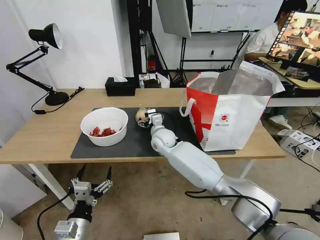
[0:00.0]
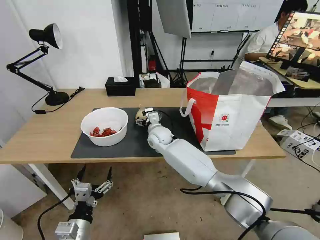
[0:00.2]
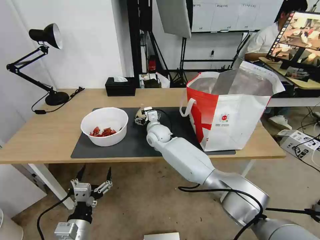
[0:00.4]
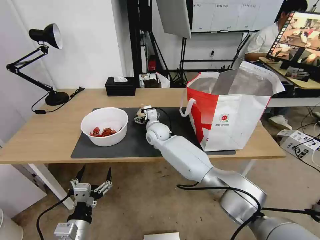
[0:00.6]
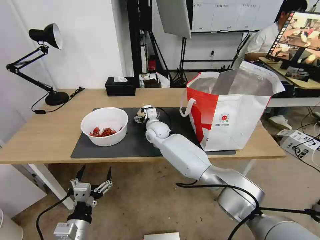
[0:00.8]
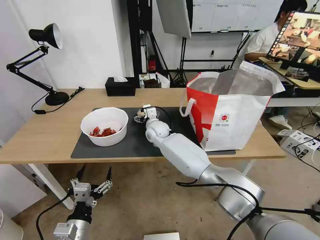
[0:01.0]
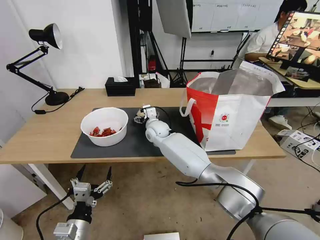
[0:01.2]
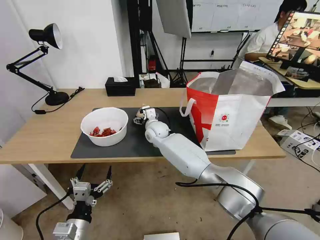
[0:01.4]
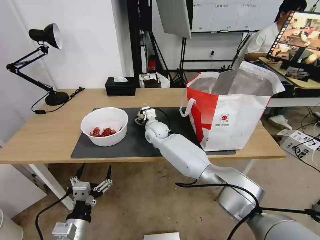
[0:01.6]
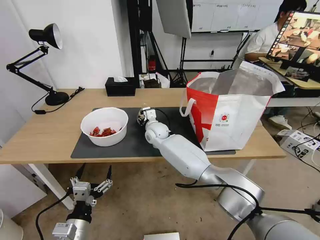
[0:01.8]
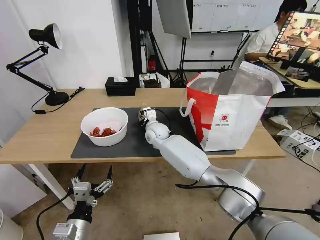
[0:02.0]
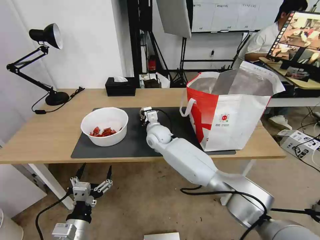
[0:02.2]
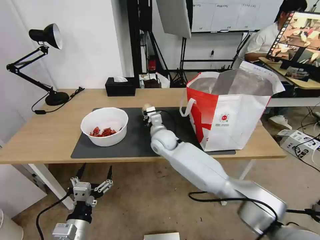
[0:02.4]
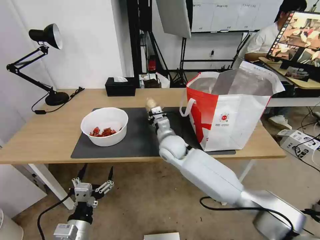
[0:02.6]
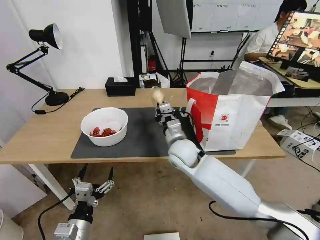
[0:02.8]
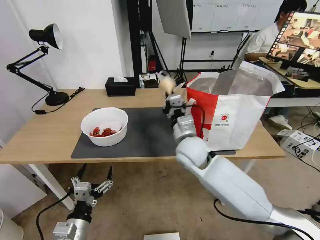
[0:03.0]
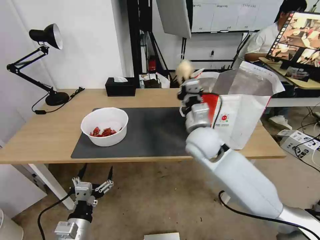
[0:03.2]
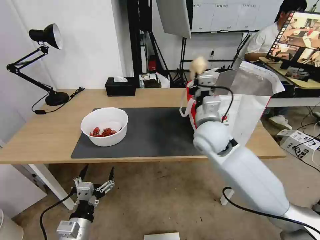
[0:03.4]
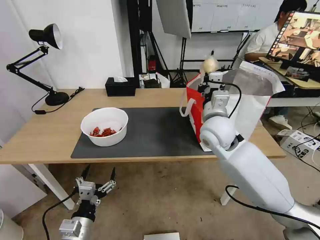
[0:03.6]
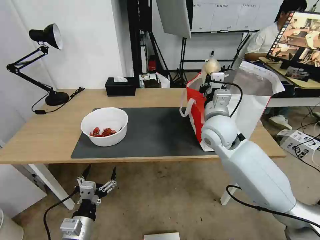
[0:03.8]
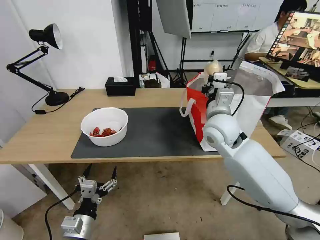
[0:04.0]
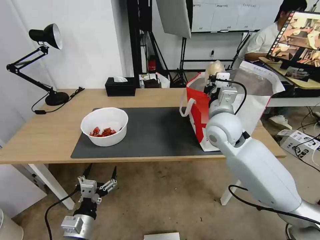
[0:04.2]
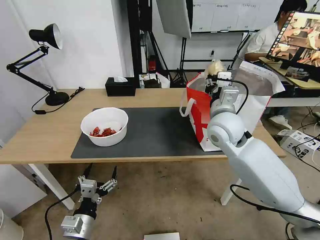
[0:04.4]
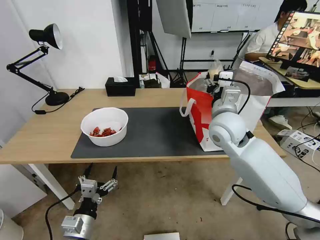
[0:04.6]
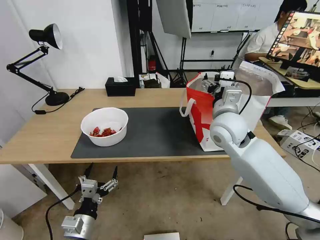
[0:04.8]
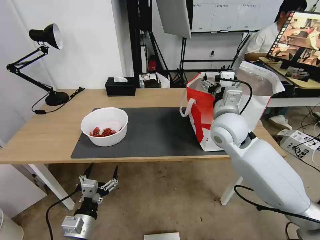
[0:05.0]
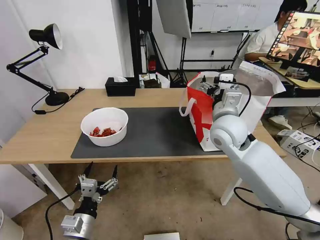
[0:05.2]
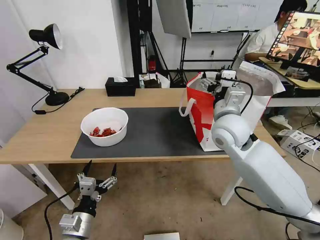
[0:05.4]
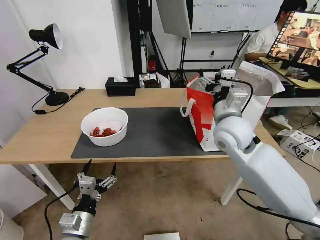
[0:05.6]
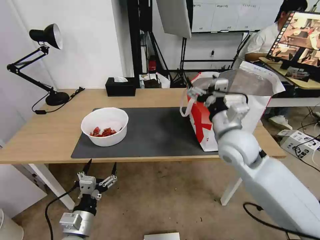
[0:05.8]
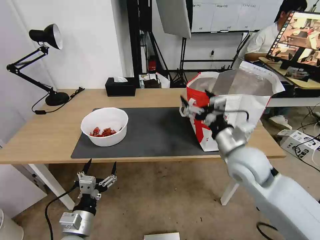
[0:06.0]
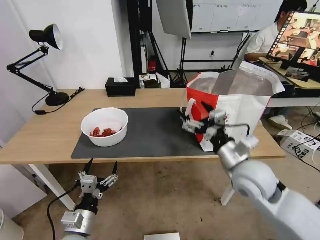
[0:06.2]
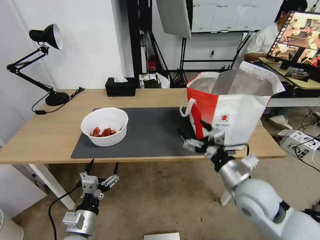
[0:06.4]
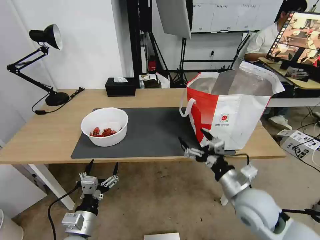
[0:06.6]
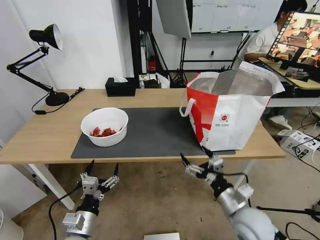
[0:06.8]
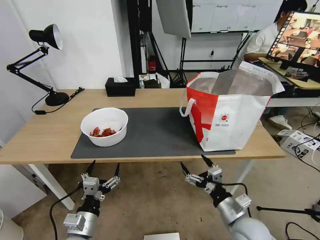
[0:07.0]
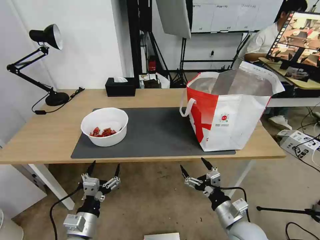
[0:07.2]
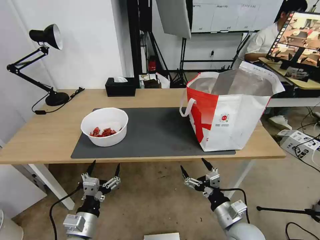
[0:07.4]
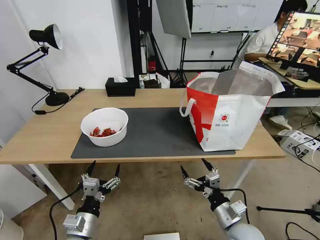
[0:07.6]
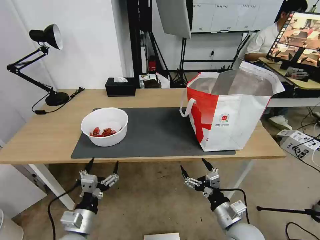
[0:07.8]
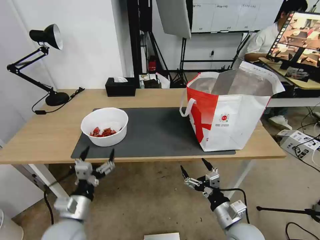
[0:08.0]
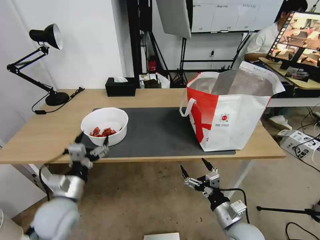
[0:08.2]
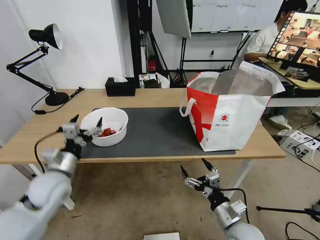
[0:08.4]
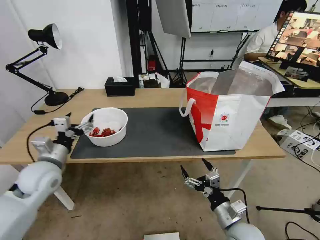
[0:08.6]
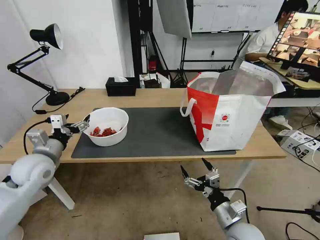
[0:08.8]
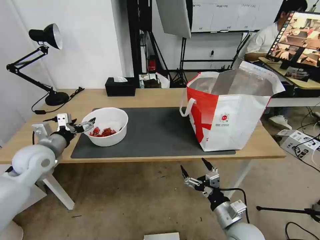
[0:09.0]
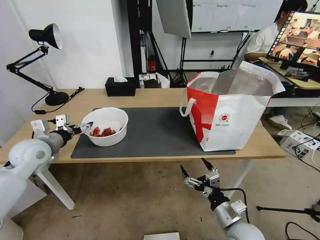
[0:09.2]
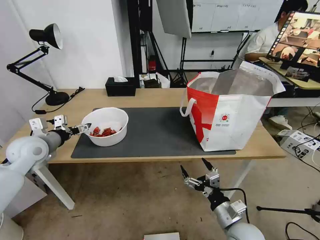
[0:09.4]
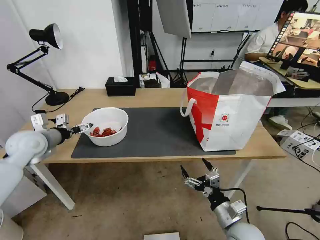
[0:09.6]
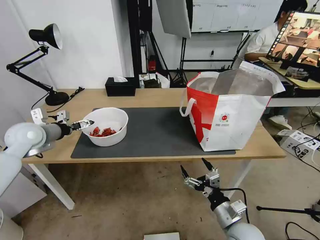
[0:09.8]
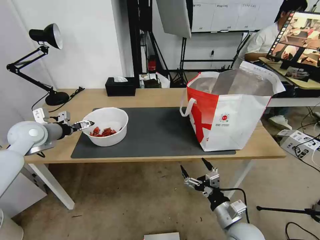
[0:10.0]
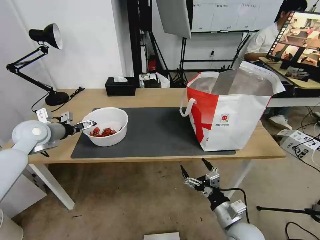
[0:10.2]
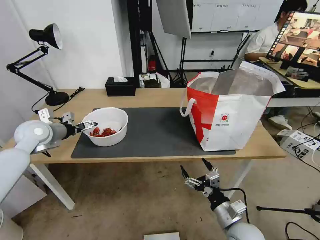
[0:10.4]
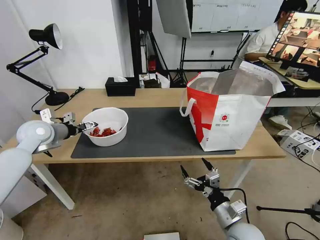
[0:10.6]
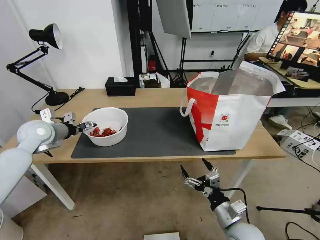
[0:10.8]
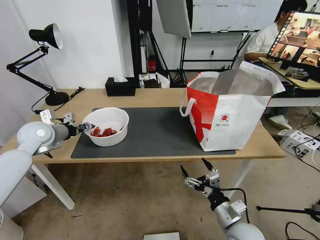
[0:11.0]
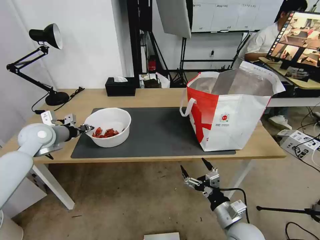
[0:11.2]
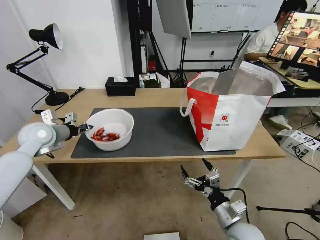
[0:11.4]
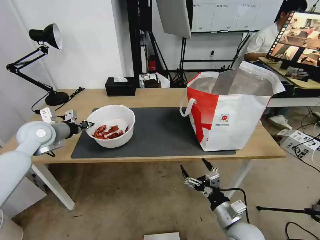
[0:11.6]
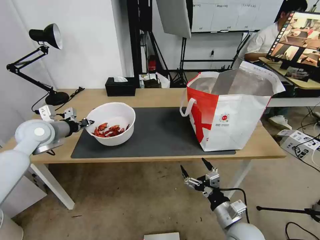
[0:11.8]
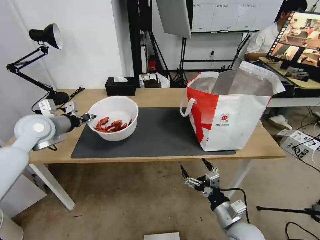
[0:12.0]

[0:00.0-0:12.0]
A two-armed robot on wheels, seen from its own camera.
Task of the whole recording: Pick up the trash from the table and place it into the takeout bag.
0.0 to 1.6 s: The grippers move only a little.
1.6 to 3.0 s: The right gripper heads backward, to the right and upward, covering some 20 cm, and closes up.
3.0 to 4.4 s: The right gripper heads to the right and upward, covering about 10 cm, and opens up.
4.4 to 6.0 s: The right gripper is displaced backward by about 10 cm, and opens up.
6.0 to 7.6 s: The right gripper moves downward and backward, approximately 25 cm.
7.6 to 9.0 s: The left gripper travels forward, upward and to the left by approximately 30 cm.
9.0 to 10.4 s: The left gripper travels forward by approximately 10 cm.
10.4 to 12.0 s: The left gripper closes.

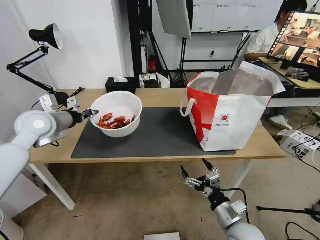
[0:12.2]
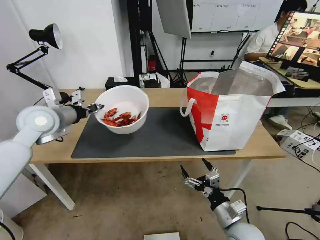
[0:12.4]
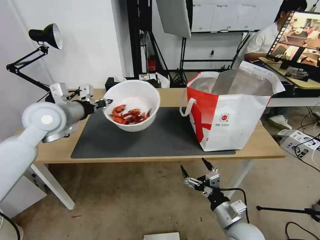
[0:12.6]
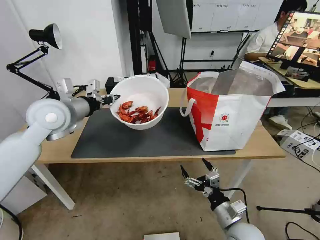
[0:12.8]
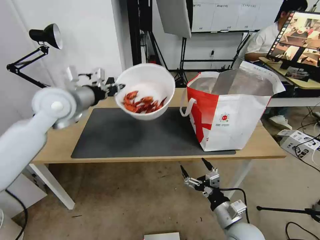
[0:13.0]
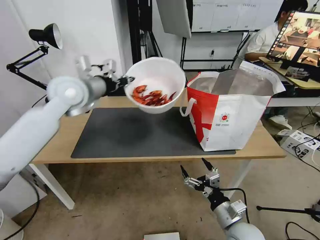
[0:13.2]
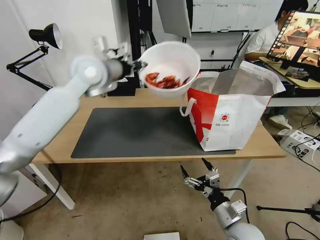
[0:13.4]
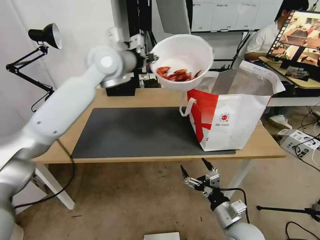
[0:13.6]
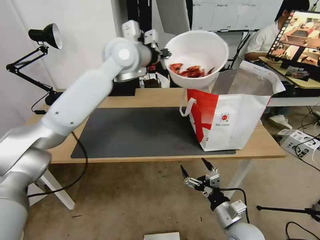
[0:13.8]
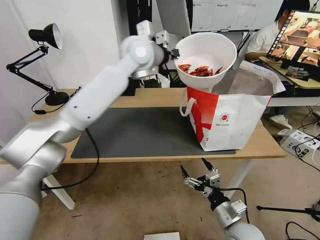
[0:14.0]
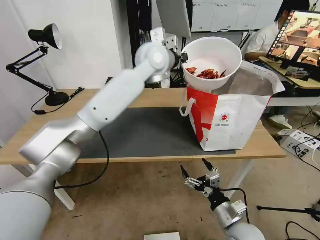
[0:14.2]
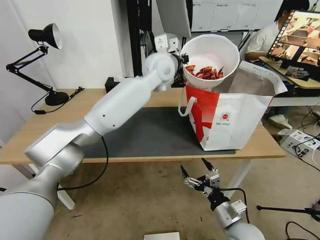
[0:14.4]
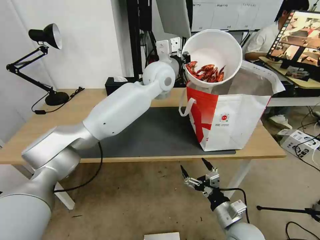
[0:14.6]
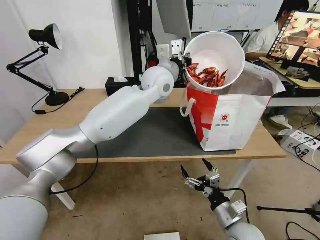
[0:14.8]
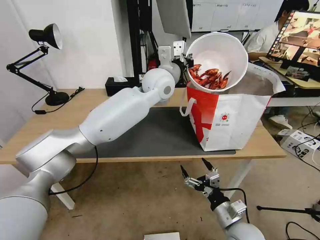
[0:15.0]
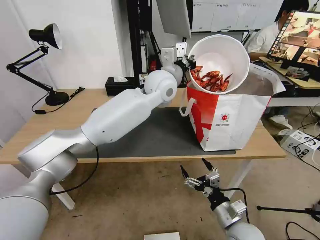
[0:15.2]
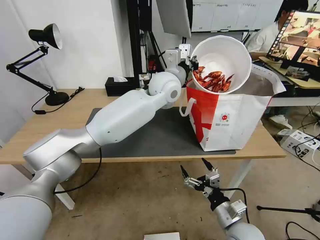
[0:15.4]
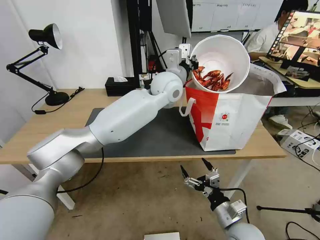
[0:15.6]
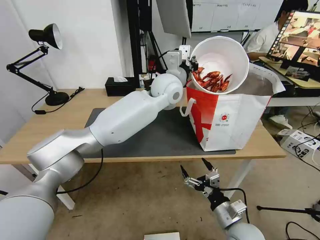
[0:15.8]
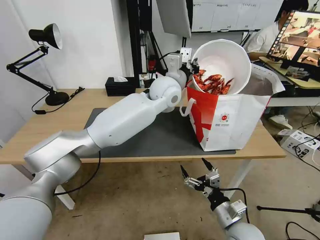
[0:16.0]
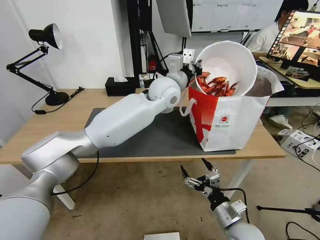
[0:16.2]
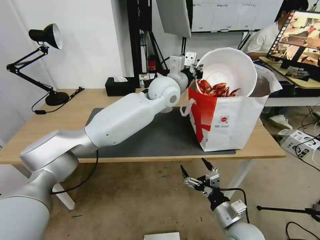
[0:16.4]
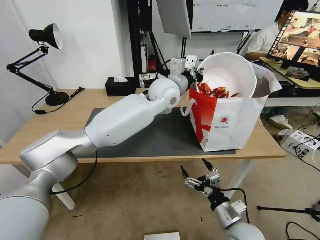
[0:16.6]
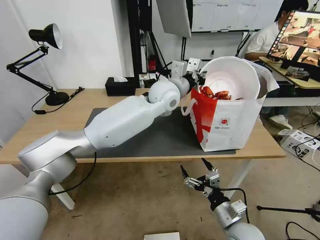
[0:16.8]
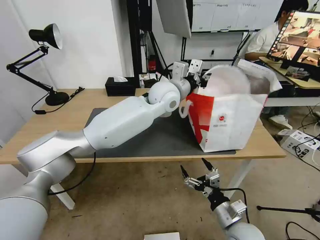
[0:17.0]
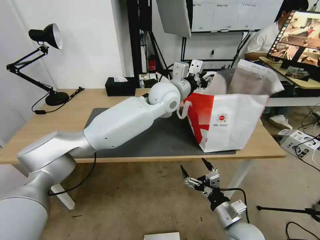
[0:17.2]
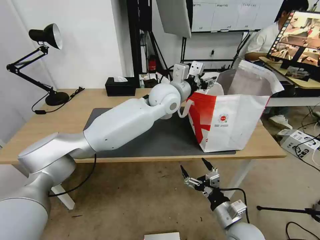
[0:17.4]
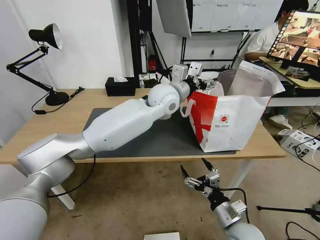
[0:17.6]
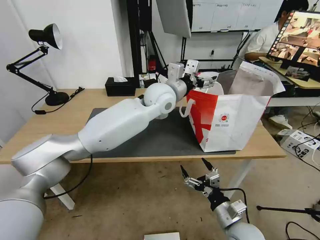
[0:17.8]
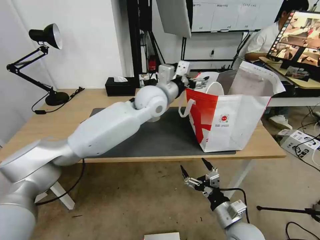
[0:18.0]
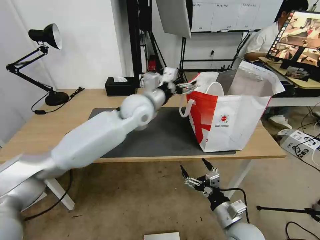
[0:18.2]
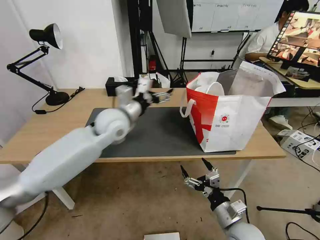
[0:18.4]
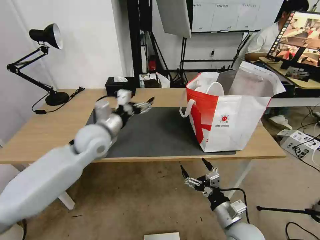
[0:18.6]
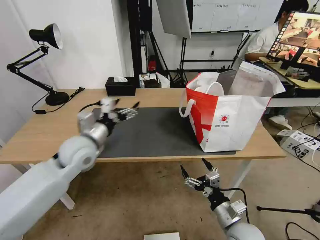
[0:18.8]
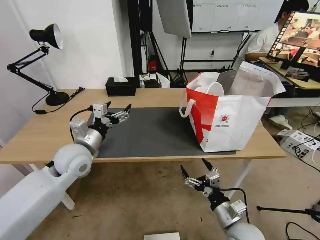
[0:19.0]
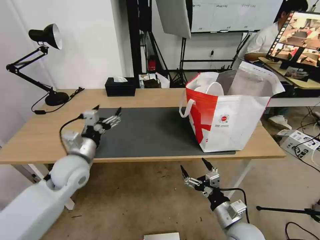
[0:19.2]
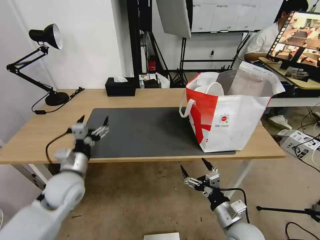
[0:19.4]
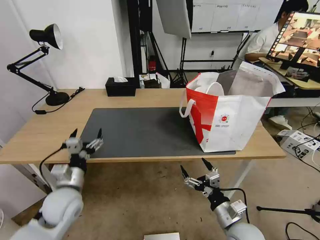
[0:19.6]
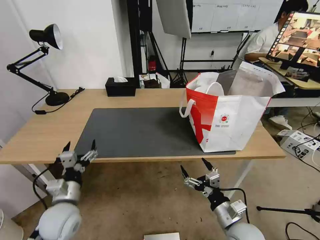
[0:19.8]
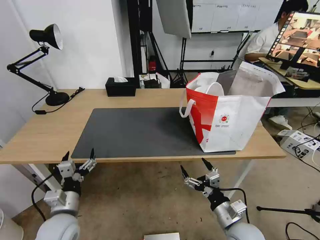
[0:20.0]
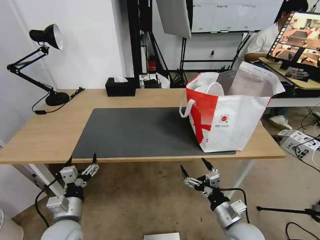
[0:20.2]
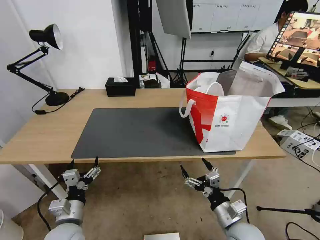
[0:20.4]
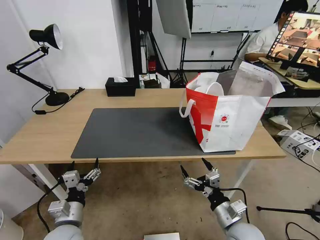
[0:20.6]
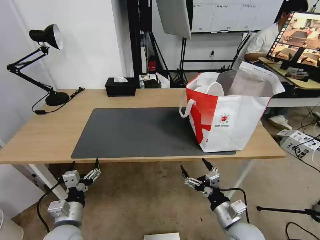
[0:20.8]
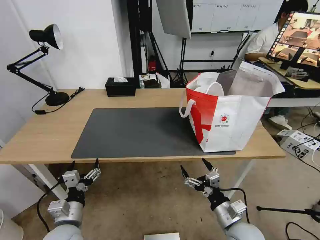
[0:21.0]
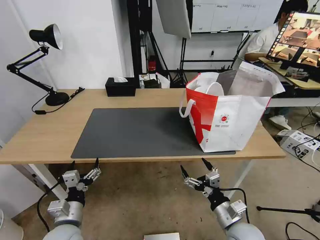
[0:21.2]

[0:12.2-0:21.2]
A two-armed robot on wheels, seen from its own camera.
Task of the whole recording: Pick up the trash from the table and place it into the takeout bag.
12.2 to 13.8 s: The left gripper moves to the right, upward and forward, approximately 30 cm.
13.8 to 15.2 s: The left gripper moves to the right and downward, about 15 cm.
15.2 to 16.6 s: The grippers make only small movements.
16.6 to 18.2 s: The left gripper shifts some 10 cm to the left, and opens.
18.2 to 19.8 s: The left gripper heads backward, downward and to the left, covering about 35 cm.
19.8 to 21.2 s: The left gripper changes place by roughly 5 cm.

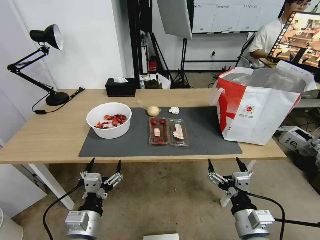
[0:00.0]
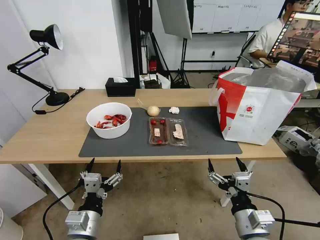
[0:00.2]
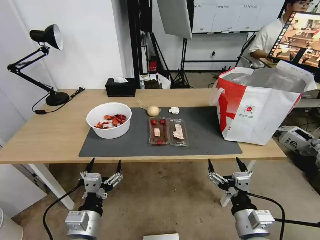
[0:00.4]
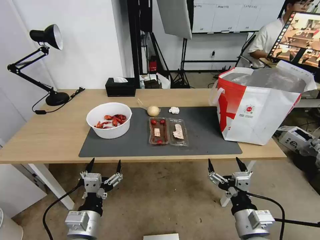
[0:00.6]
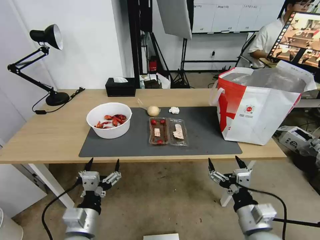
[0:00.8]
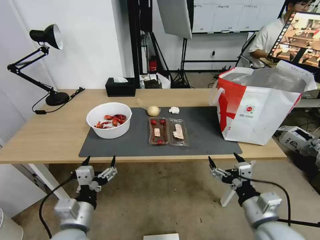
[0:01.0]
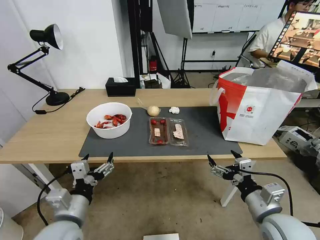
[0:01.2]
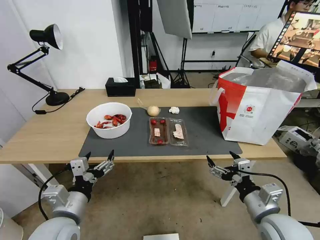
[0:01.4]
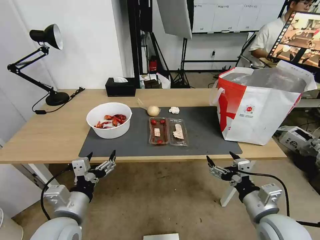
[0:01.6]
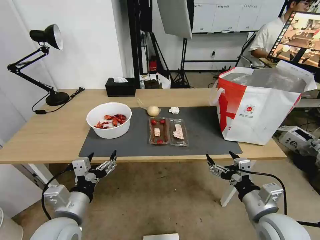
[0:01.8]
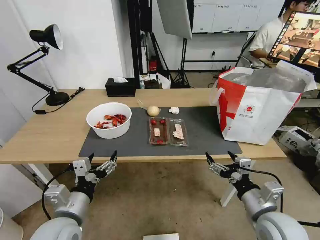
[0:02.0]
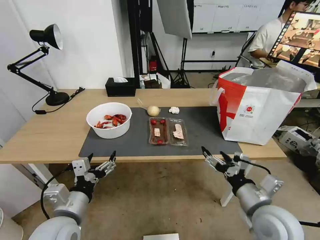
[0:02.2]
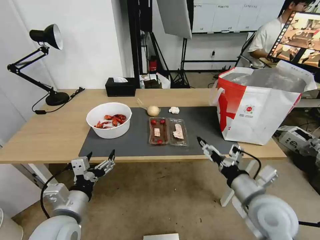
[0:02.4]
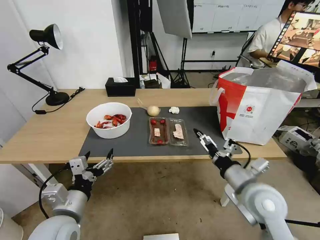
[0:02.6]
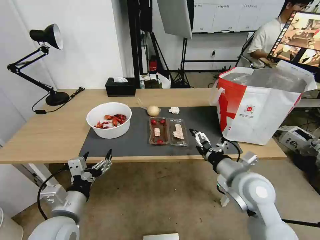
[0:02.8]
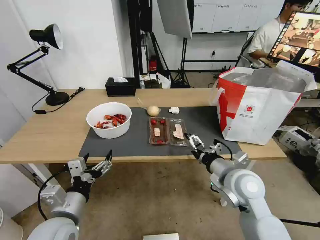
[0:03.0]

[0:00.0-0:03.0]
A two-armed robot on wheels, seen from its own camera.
Task of the whole recording: Pick up the trash from the table and place it into the takeout bag.
1.6 to 3.0 s: The right gripper moves forward and to the left, roughly 10 cm.
